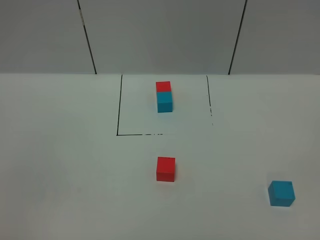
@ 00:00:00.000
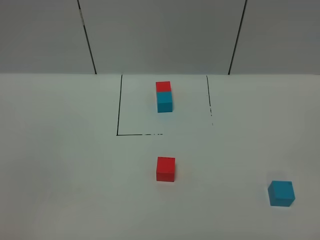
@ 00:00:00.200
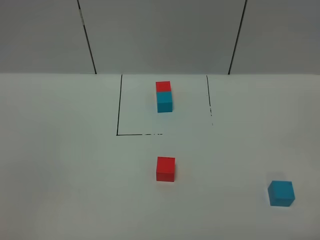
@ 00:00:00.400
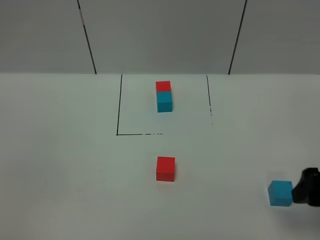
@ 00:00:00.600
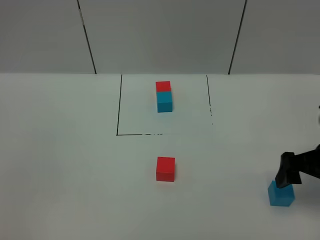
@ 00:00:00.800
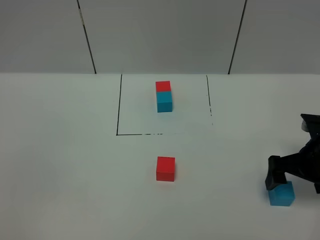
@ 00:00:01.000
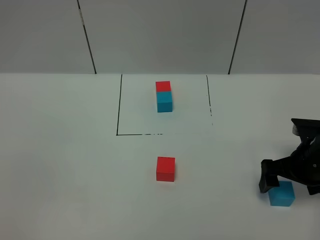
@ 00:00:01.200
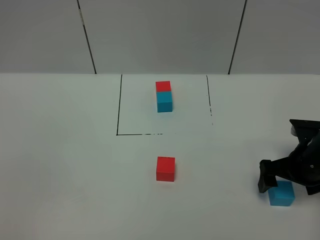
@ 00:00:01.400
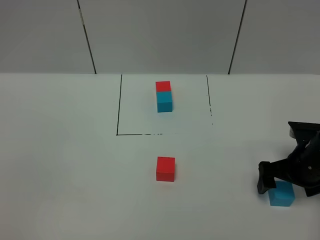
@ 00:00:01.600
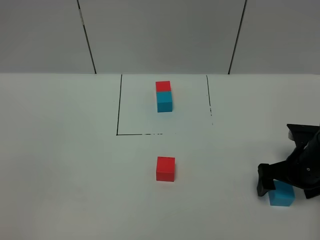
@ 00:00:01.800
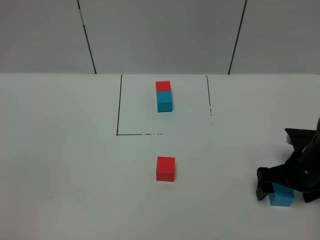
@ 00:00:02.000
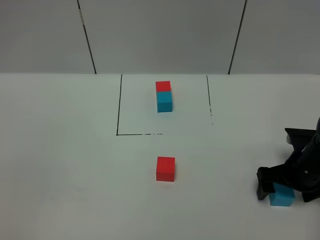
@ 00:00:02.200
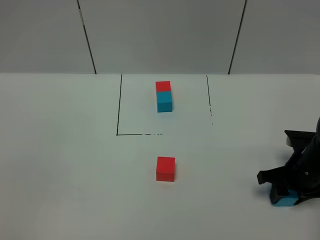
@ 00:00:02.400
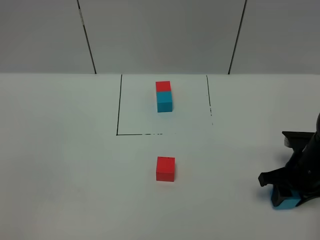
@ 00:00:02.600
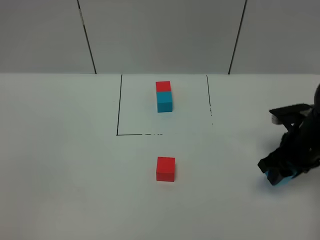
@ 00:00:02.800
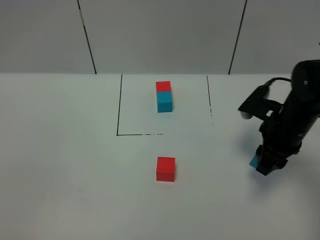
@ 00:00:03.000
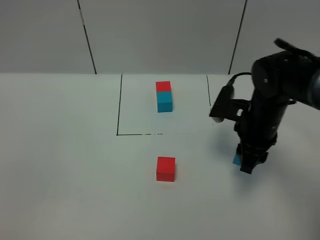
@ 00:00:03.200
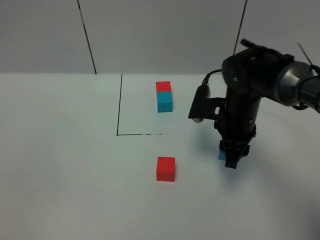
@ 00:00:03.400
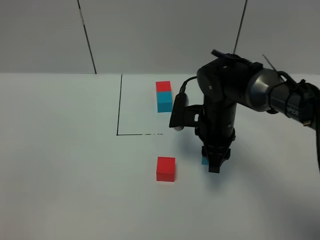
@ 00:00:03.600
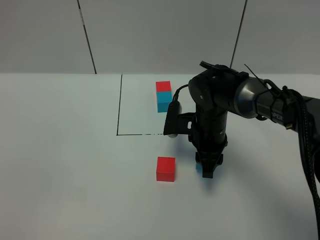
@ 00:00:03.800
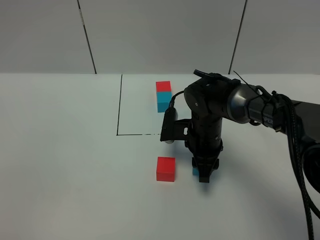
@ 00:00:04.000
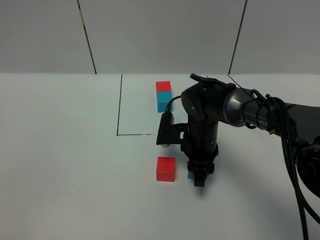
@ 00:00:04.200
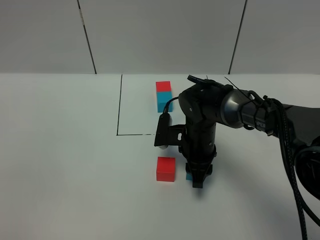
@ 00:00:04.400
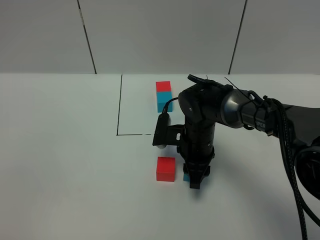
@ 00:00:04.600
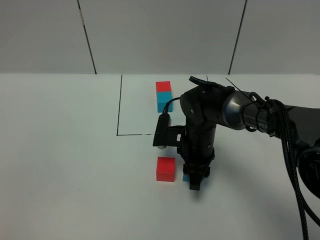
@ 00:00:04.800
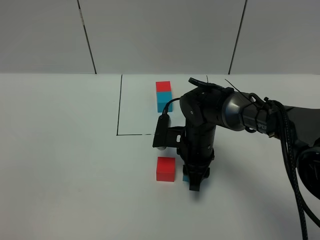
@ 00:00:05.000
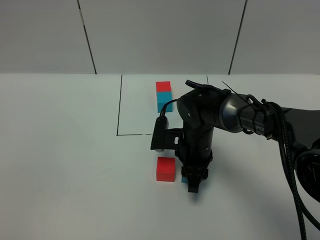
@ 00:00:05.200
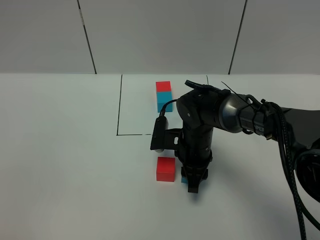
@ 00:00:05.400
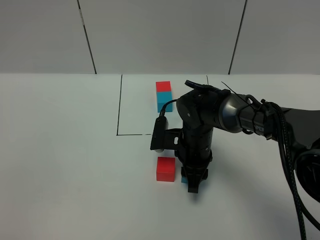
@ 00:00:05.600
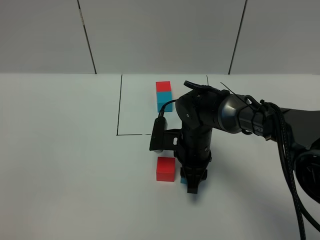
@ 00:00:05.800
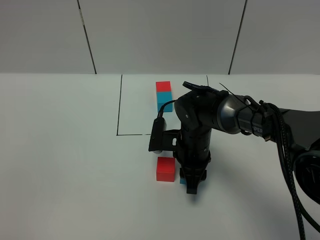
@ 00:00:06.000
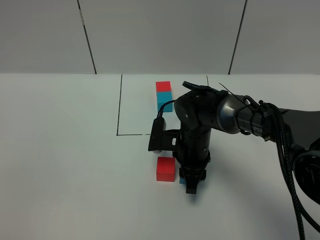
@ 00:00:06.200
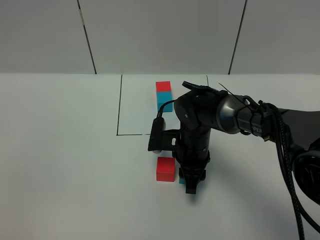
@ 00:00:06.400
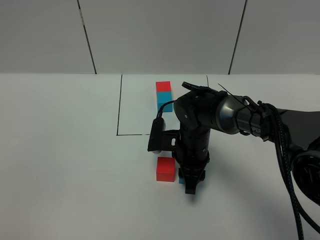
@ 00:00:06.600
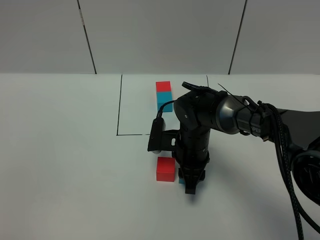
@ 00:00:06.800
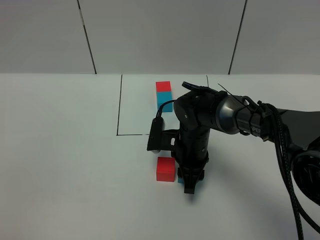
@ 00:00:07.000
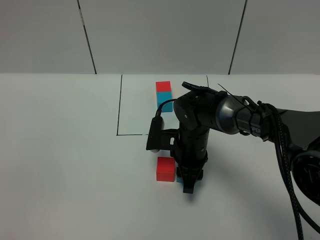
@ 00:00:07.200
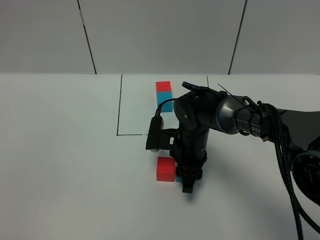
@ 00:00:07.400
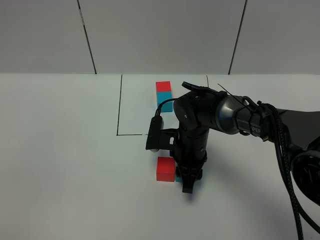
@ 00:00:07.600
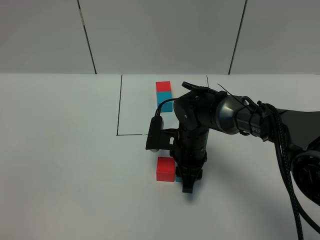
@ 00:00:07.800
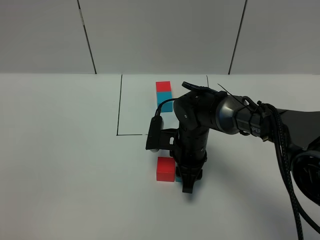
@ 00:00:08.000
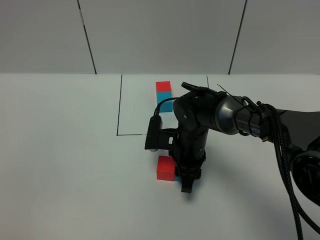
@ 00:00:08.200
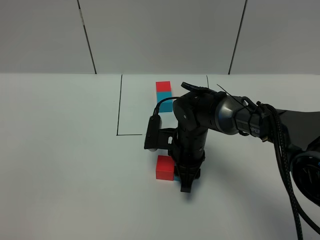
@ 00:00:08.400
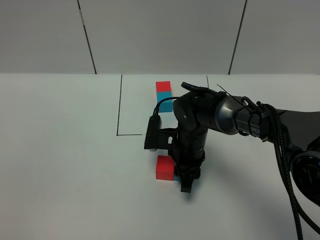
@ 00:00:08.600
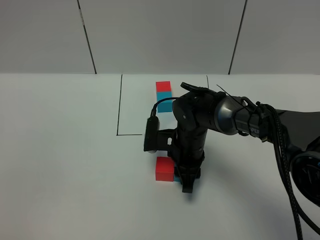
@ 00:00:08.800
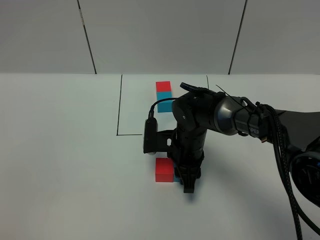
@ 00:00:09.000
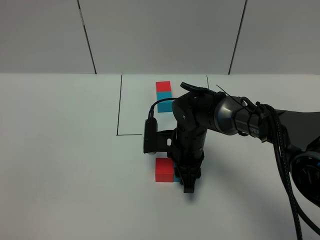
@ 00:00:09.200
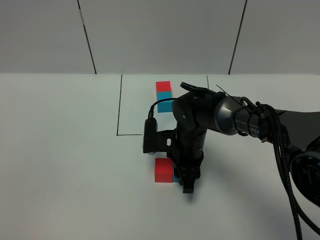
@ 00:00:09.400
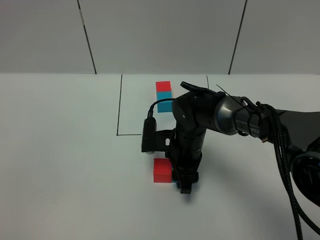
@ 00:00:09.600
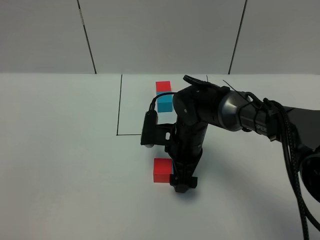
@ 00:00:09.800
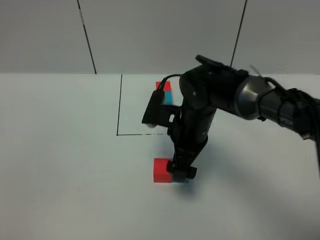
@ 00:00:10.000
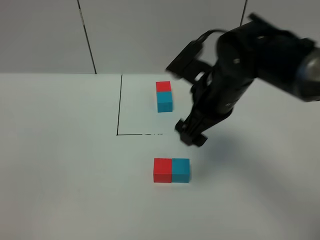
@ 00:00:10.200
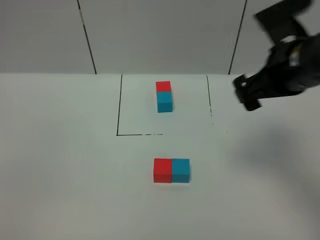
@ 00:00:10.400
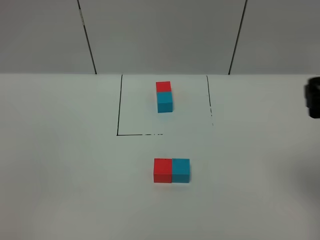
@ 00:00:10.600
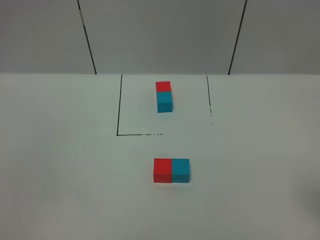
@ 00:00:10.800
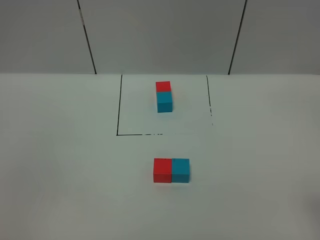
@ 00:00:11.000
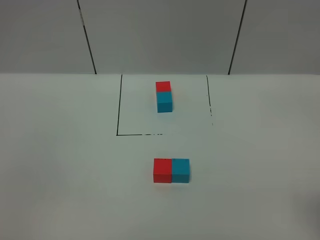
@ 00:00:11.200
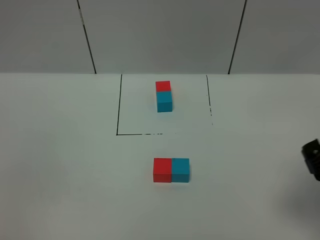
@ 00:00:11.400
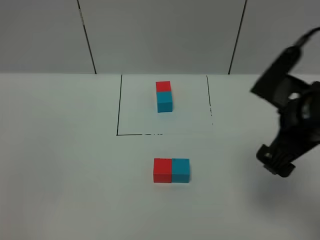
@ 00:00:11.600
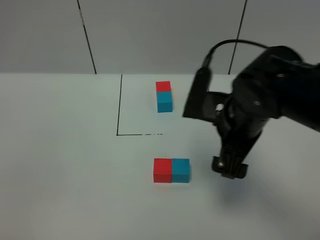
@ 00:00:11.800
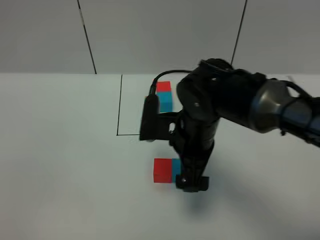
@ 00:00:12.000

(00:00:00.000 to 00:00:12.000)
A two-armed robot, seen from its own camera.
Task of the whole recording: According to the building block template in front, assemble the scattered blocks together.
Step, 00:00:00.000 - 00:00:09.800: Put the blue cube on the right of the red cube.
00:00:00.000 - 00:00:01.600: The right gripper is displaced forward and downward by some 35 cm.
00:00:01.600 - 00:00:03.000: The right gripper travels to the left and upward by about 10 cm, and closes up.
00:00:03.000 - 00:00:04.400: The right gripper shifts approximately 15 cm to the left and downward.
00:00:04.400 - 00:00:06.000: There are only small adjustments of the grippers.
00:00:06.000 - 00:00:07.600: Both grippers stay put.
00:00:07.600 - 00:00:09.000: The grippers move only a little.
00:00:09.000 - 00:00:10.400: The right gripper moves upward and to the right, some 25 cm, and opens its fingers.
00:00:10.400 - 00:00:12.000: The right gripper goes some 20 cm to the left and downward.

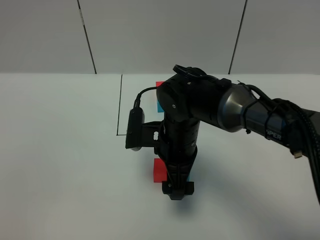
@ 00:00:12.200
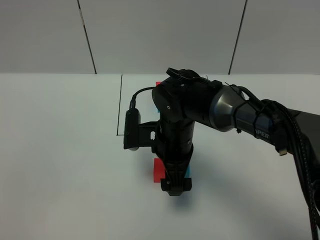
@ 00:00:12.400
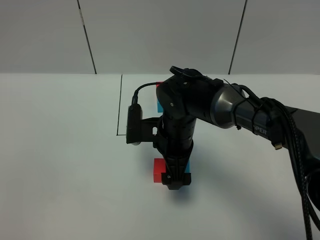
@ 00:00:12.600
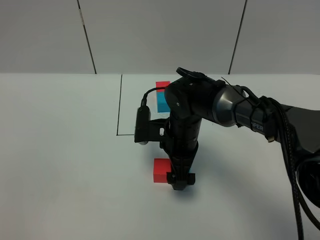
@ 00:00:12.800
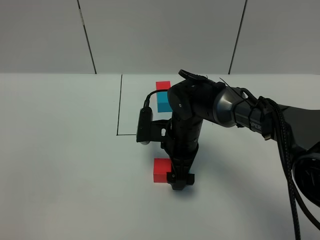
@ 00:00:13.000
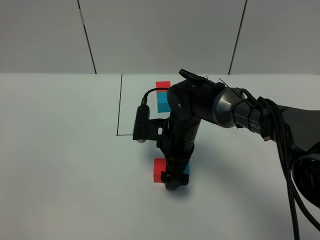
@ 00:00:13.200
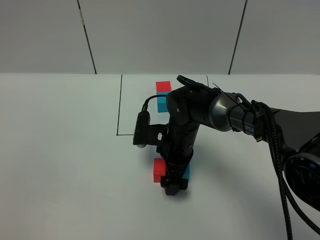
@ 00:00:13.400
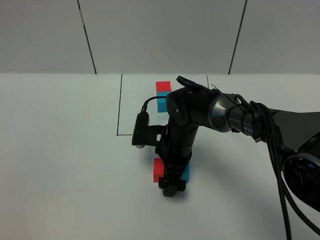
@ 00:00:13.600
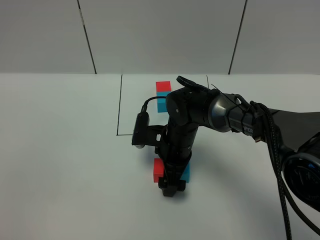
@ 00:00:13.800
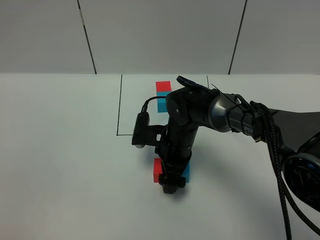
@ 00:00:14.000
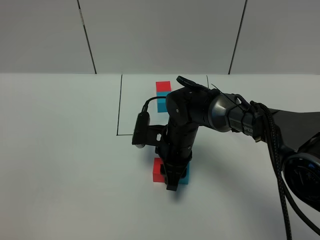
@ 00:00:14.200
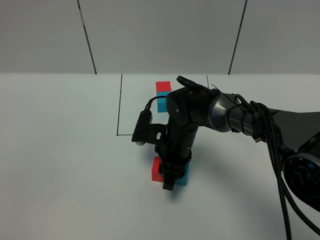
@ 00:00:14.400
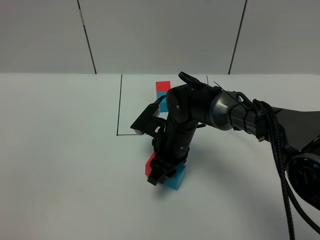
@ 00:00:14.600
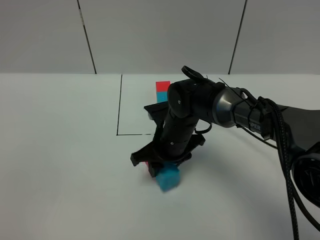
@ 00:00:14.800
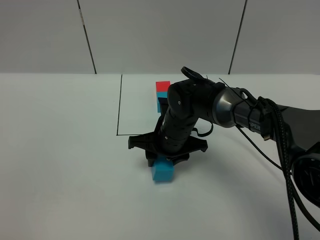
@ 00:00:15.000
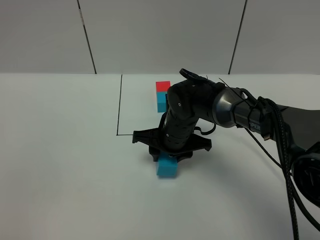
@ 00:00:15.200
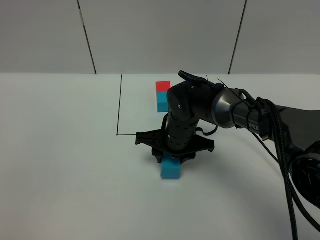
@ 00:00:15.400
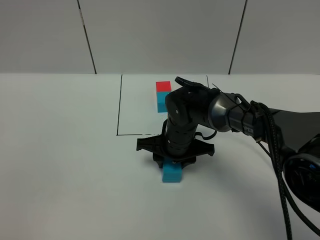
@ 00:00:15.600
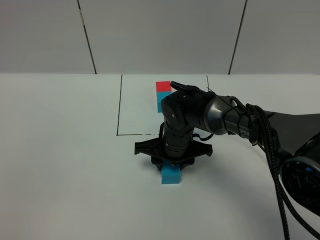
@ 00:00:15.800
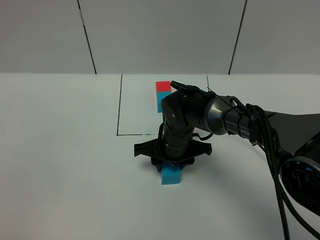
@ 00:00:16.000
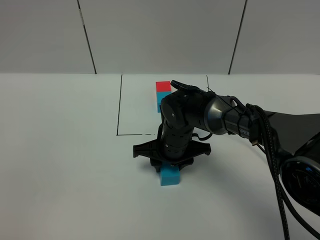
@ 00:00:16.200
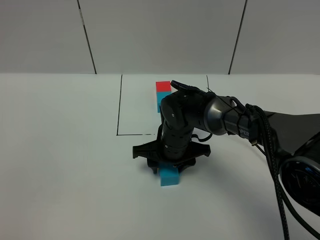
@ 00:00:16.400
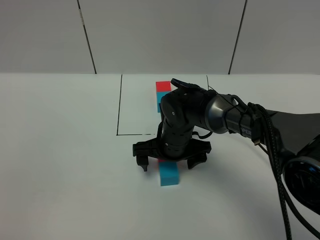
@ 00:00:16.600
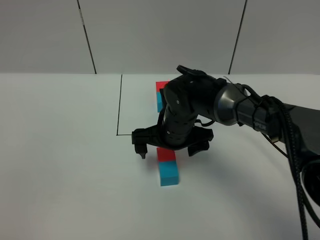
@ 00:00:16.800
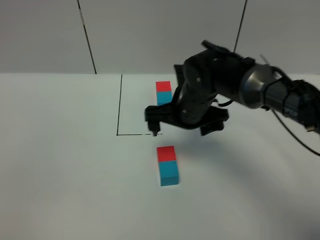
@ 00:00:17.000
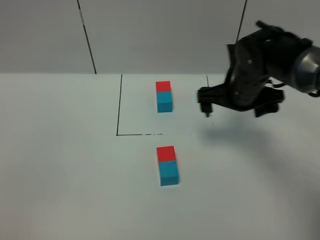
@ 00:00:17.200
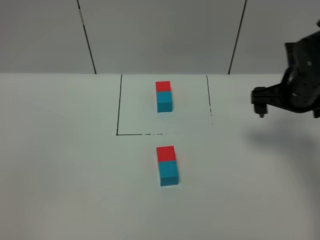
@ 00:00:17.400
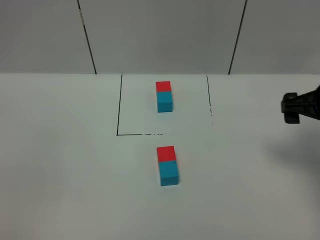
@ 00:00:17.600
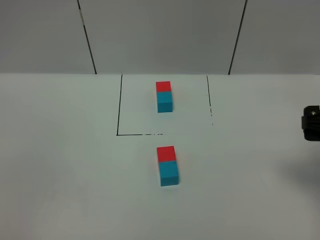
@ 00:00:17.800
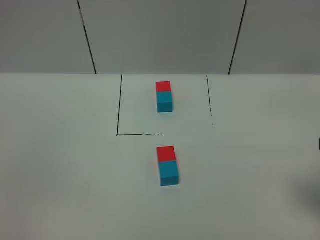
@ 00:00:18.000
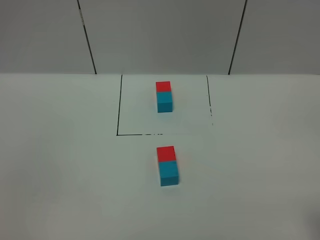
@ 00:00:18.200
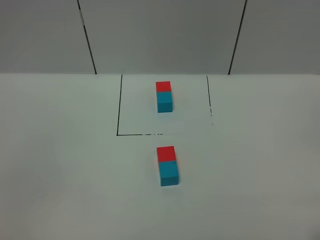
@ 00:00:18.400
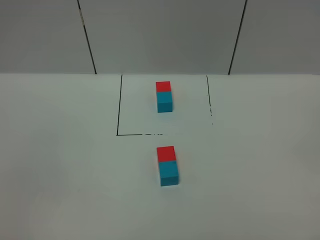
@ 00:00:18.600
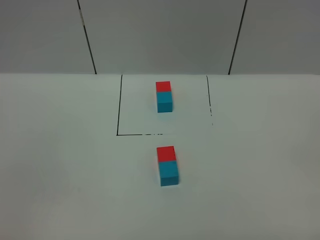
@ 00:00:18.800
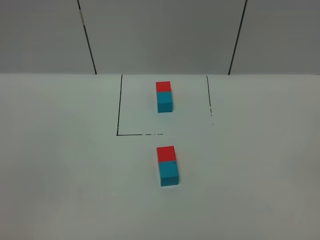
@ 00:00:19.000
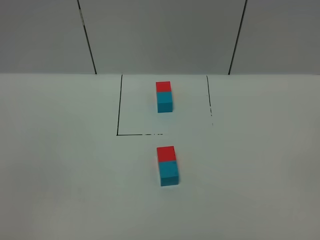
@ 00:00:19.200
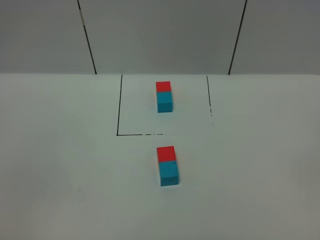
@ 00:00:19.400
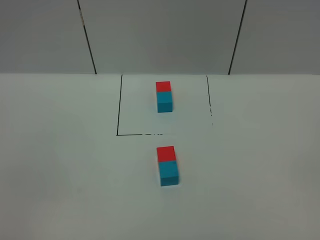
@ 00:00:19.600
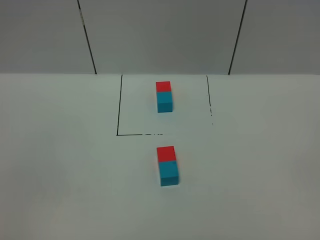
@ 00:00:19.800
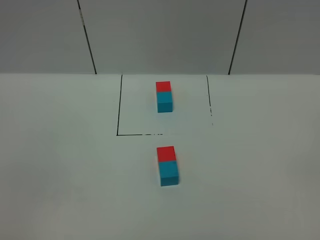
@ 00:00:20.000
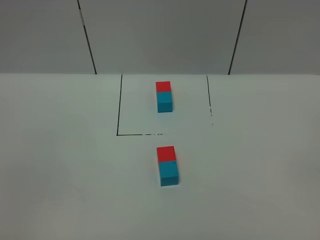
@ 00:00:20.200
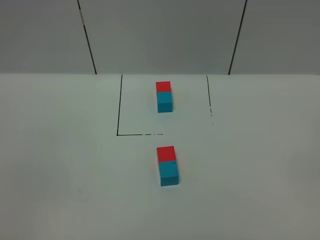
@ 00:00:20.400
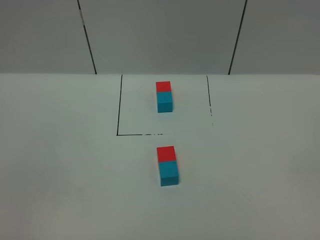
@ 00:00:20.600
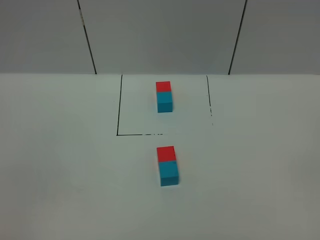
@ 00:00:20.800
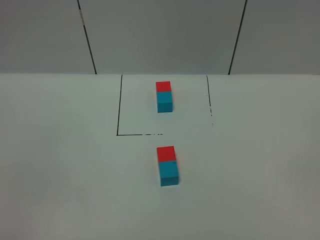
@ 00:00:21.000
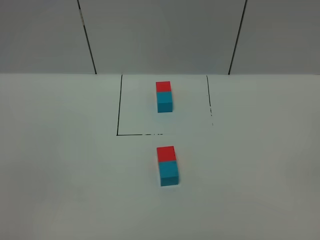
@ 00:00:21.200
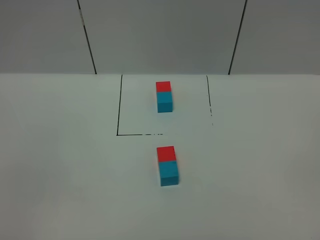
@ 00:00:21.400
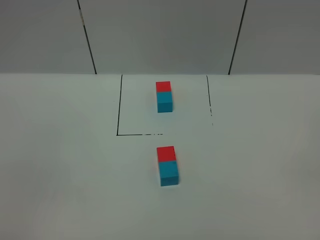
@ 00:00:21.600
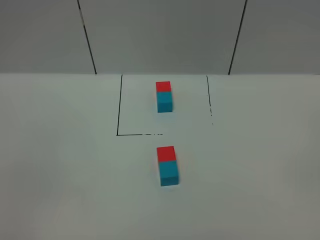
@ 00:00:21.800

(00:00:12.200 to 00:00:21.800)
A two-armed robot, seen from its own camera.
Task of the whole recording: According to the building block template in front, assemble the scattered blocks together.
Step, 00:00:12.200 - 00:00:16.400: Adjust the pose of the building blocks.
00:00:12.200 - 00:00:13.800: The right gripper travels downward by some 5 cm.
00:00:13.800 - 00:00:15.400: The right gripper closes its fingers.
00:00:15.400 - 00:00:17.000: The right gripper heads upward, covering approximately 10 cm, and opens.
00:00:17.000 - 00:00:18.600: The right gripper moves backward and to the right, about 40 cm.
00:00:20.200 - 00:00:21.800: The two grippers keep their place.
